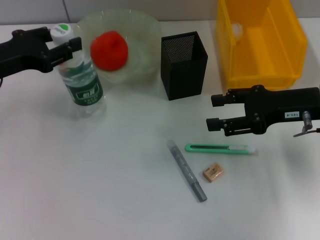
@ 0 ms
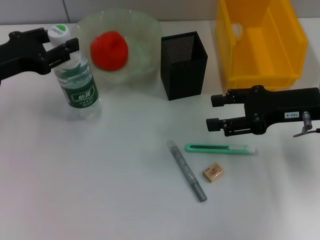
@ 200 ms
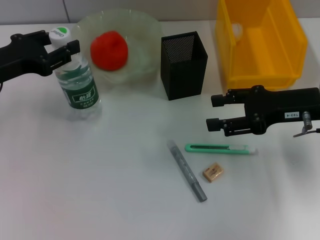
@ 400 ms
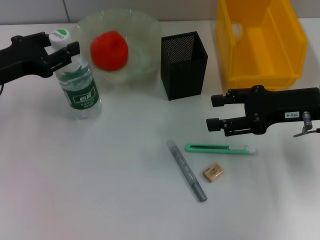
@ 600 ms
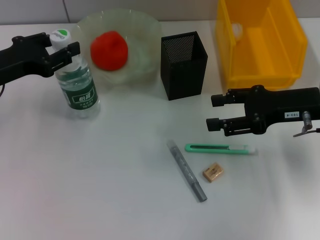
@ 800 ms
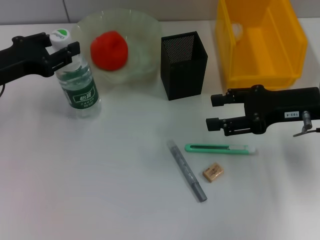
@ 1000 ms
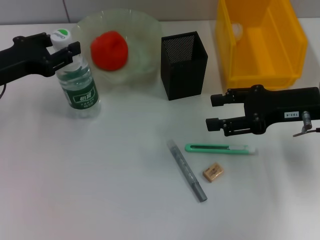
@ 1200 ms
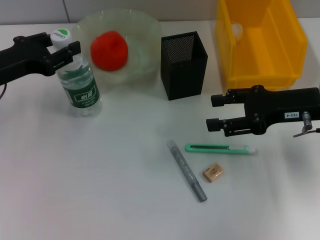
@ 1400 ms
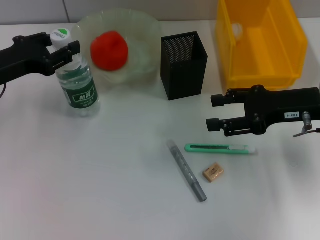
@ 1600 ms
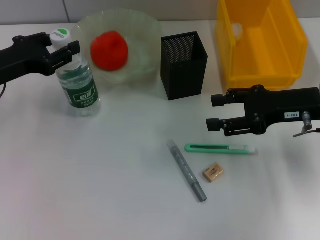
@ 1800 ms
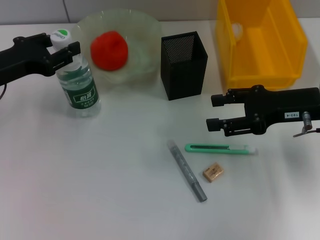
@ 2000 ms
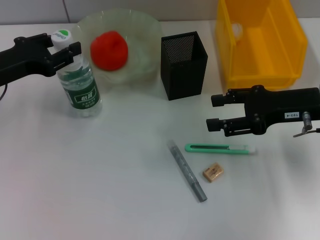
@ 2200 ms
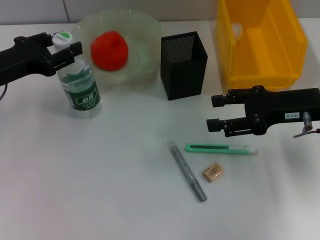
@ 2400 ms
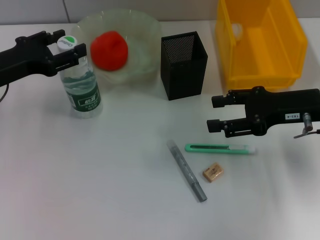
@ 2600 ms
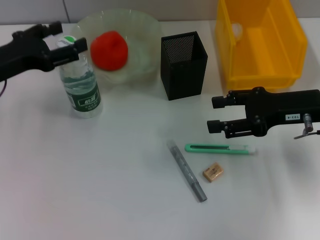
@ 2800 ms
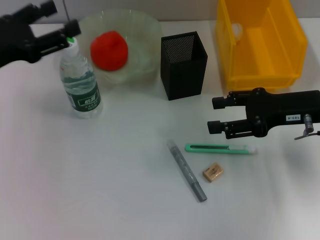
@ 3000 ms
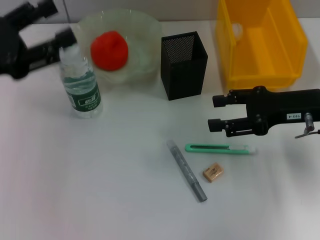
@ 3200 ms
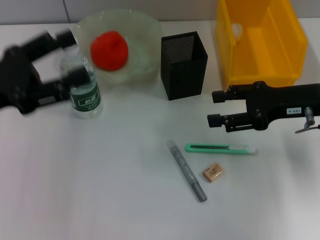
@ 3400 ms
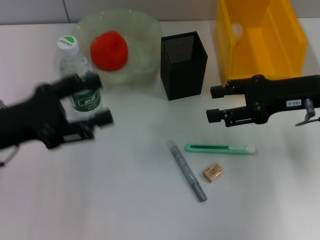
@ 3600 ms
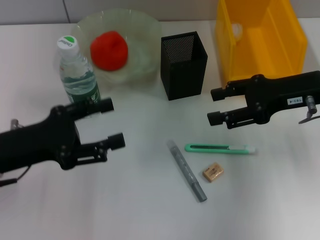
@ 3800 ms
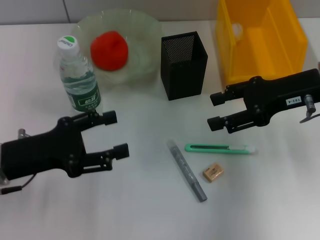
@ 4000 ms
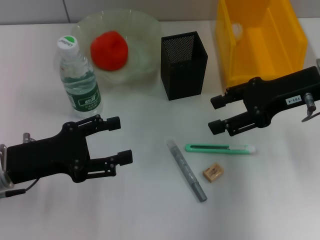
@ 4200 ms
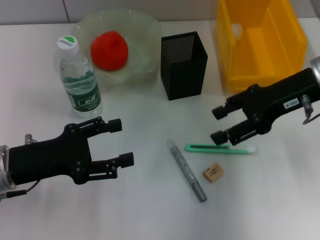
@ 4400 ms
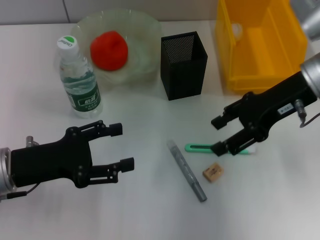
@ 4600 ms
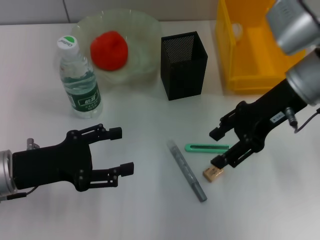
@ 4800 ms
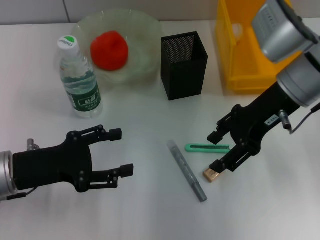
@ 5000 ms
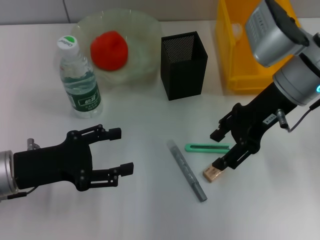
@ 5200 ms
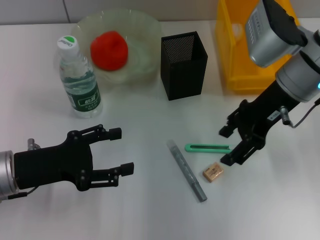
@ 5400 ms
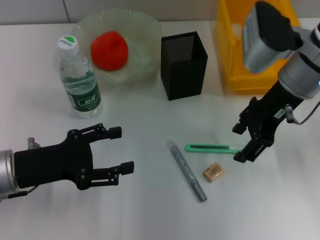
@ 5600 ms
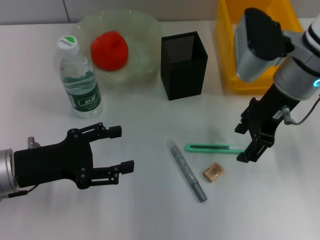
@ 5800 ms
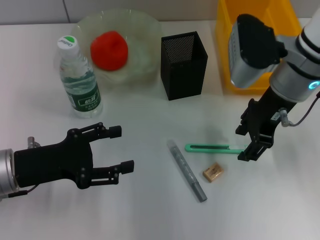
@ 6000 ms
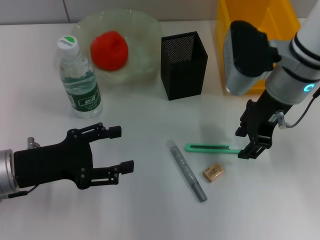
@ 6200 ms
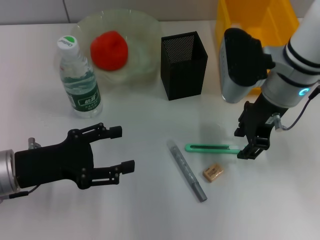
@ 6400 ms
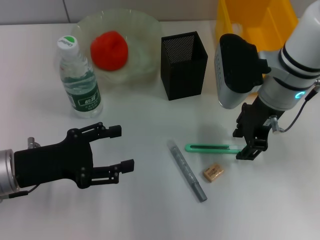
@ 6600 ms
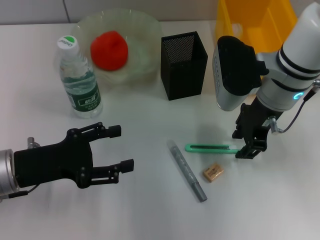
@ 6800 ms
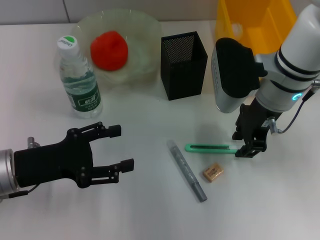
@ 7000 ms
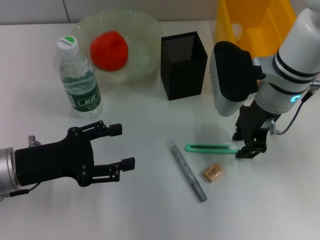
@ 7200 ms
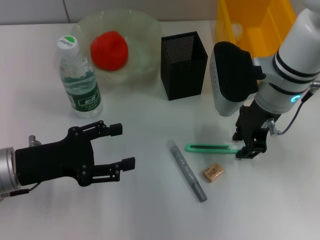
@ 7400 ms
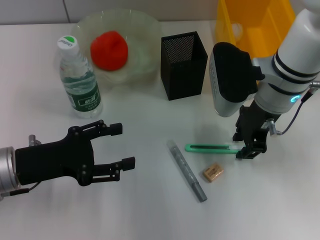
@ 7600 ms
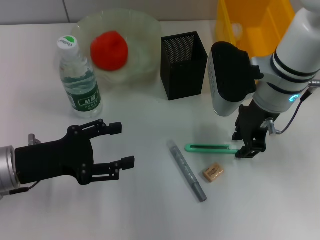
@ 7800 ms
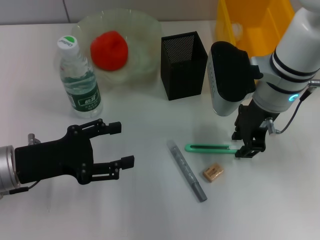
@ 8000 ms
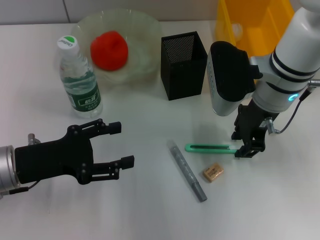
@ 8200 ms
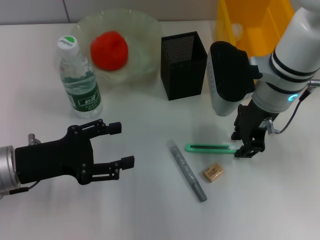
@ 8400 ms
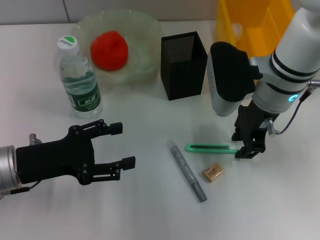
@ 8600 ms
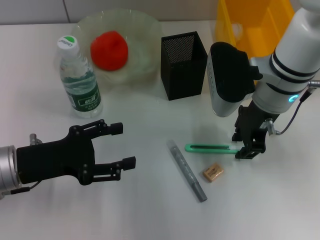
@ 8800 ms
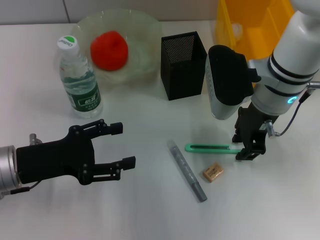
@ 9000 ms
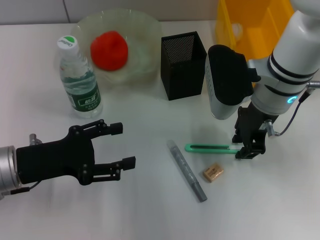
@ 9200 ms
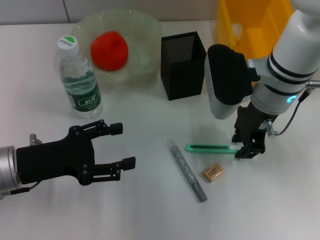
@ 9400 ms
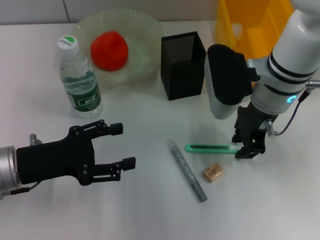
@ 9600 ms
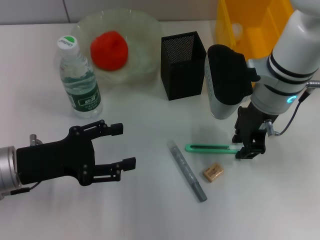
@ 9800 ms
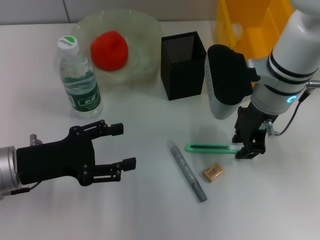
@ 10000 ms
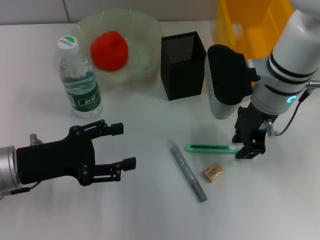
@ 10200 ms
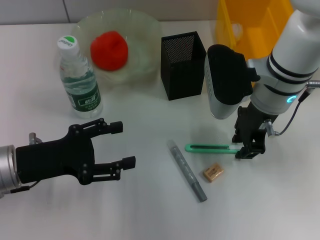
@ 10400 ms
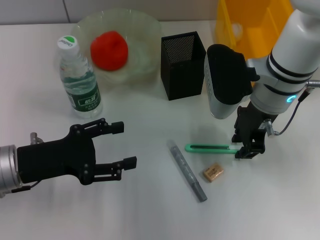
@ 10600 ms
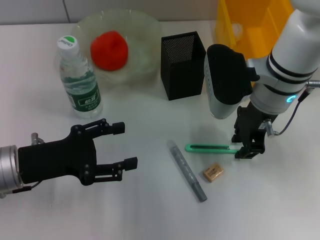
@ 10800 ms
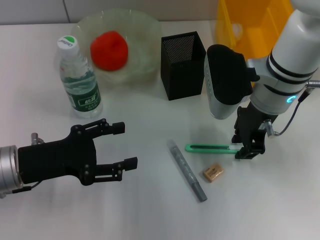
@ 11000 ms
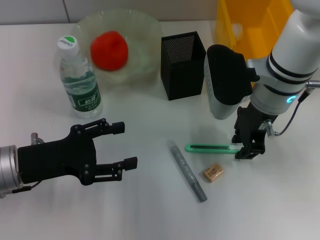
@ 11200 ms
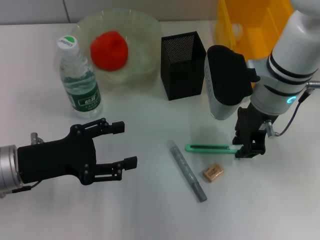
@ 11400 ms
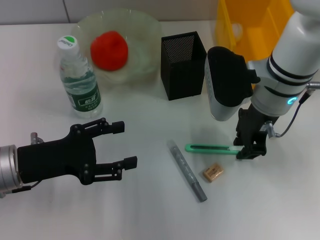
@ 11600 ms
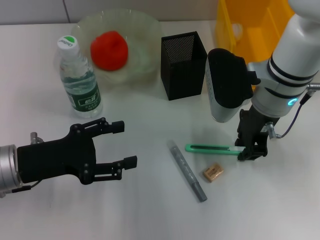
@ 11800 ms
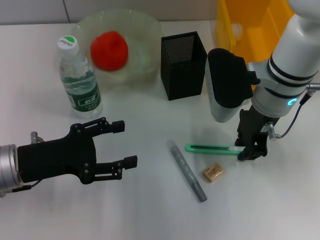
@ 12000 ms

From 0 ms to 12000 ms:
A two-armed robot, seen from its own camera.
Step, from 0 ms to 2800 ms: Place the water bottle on the table with the left hand.
From 0 ms to 1600 ms: The grippers make only small movements.
From 1600 ms to 3000 ms: The left gripper opens its fingers.
From 3000 ms to 4400 ms: The left gripper is displaced backward and downward by about 10 cm, while the right gripper shifts some 5 cm upward.
From 4400 ms to 6000 ms: The right gripper is displaced to the left by roughly 5 cm.
From 6000 ms to 7600 ms: The right gripper closes its fingers.
From 7600 ms to 12000 ms: The two grippers keep their place.

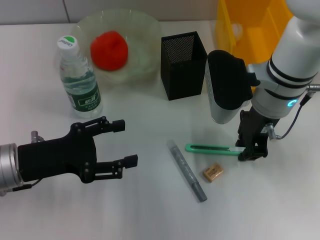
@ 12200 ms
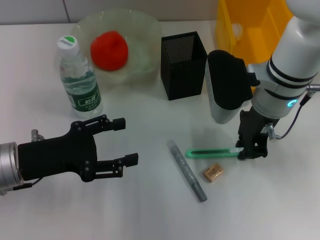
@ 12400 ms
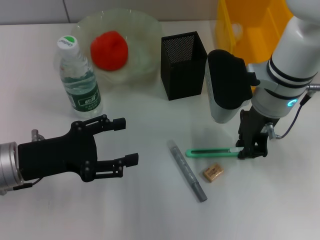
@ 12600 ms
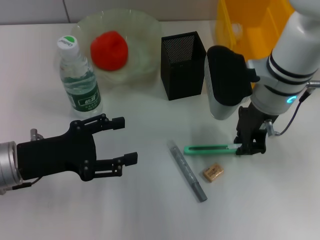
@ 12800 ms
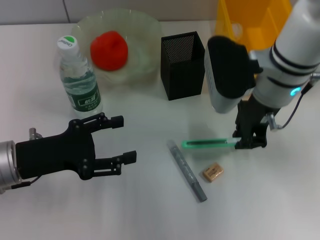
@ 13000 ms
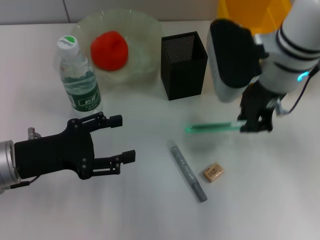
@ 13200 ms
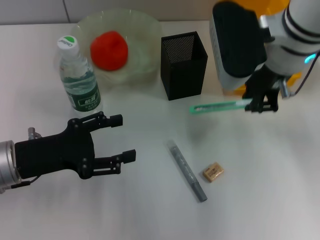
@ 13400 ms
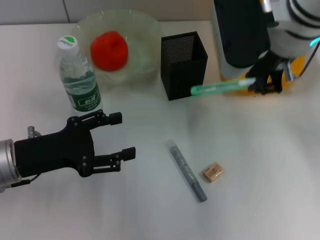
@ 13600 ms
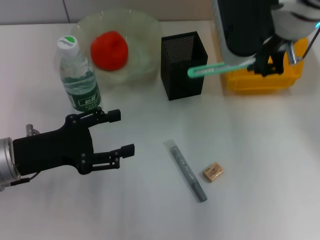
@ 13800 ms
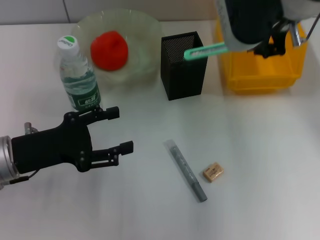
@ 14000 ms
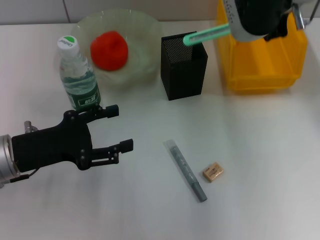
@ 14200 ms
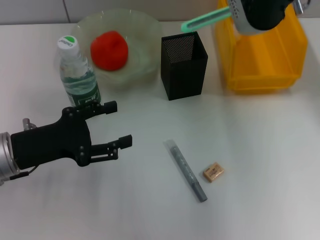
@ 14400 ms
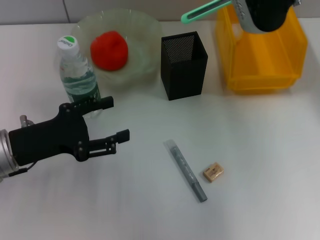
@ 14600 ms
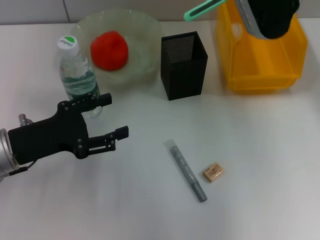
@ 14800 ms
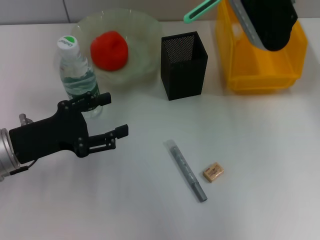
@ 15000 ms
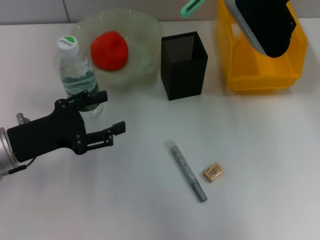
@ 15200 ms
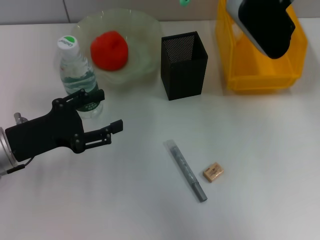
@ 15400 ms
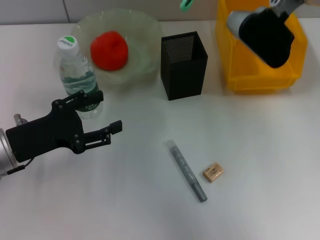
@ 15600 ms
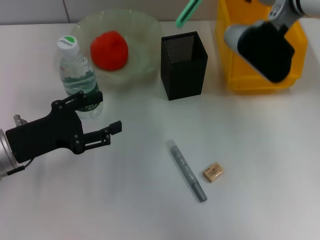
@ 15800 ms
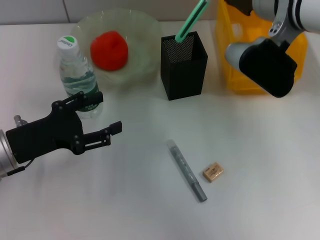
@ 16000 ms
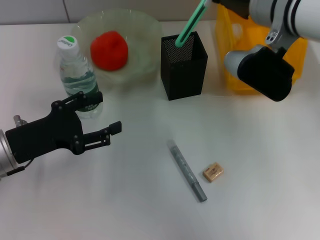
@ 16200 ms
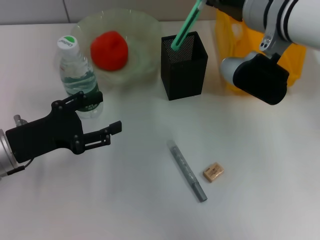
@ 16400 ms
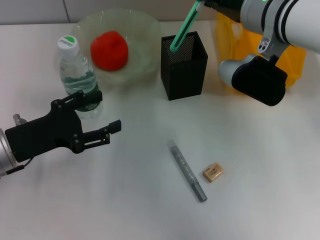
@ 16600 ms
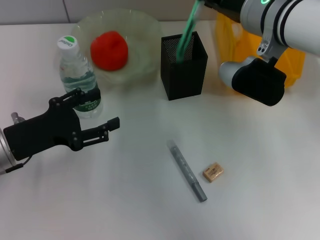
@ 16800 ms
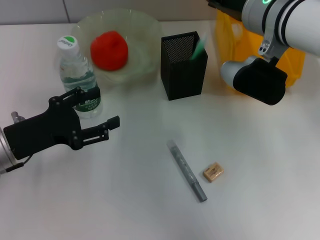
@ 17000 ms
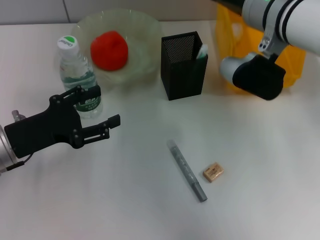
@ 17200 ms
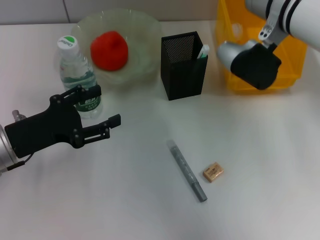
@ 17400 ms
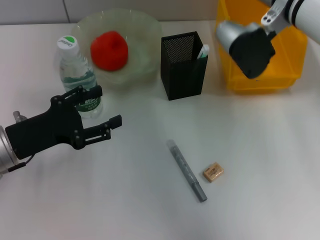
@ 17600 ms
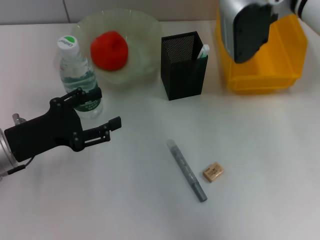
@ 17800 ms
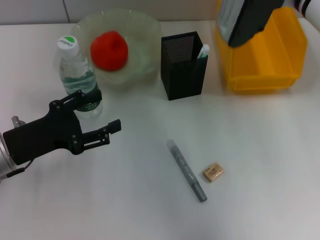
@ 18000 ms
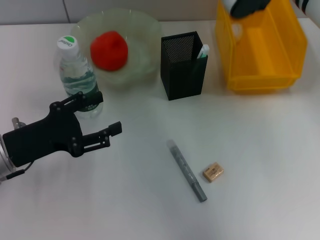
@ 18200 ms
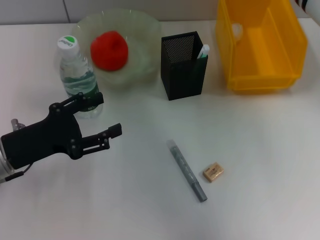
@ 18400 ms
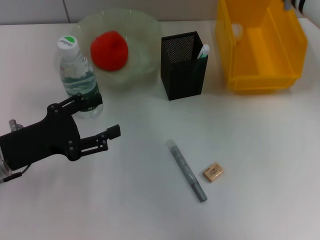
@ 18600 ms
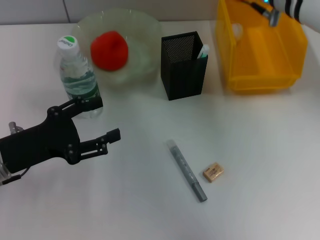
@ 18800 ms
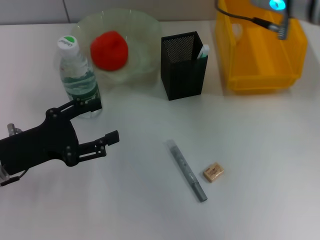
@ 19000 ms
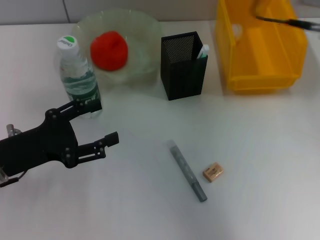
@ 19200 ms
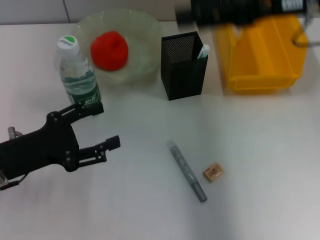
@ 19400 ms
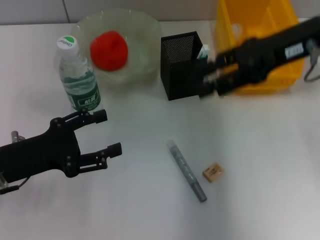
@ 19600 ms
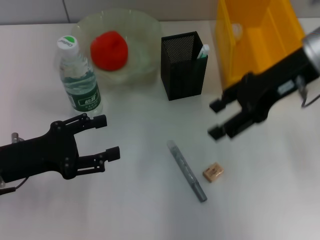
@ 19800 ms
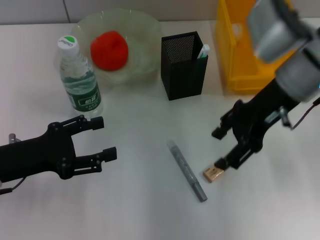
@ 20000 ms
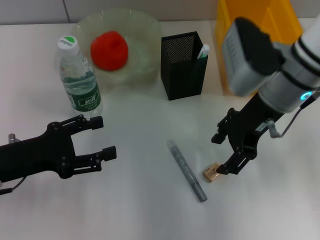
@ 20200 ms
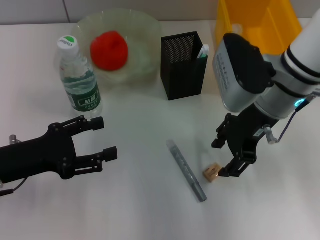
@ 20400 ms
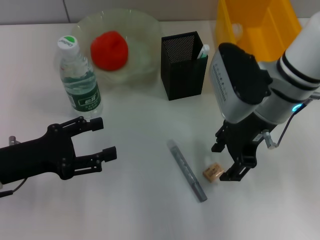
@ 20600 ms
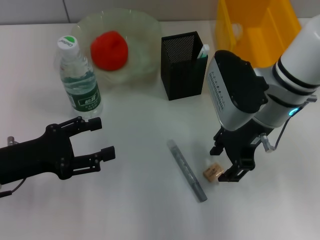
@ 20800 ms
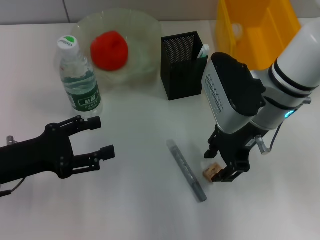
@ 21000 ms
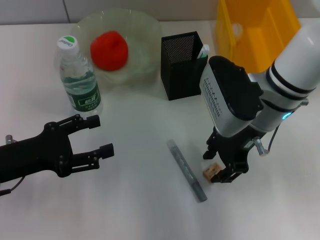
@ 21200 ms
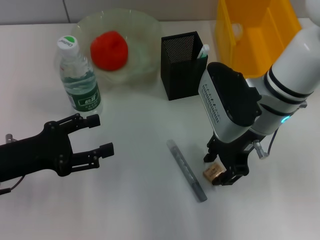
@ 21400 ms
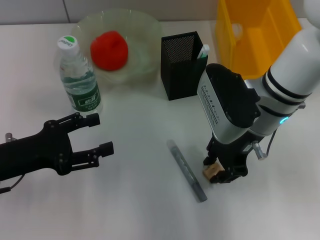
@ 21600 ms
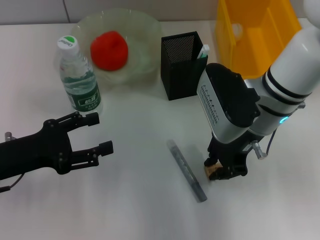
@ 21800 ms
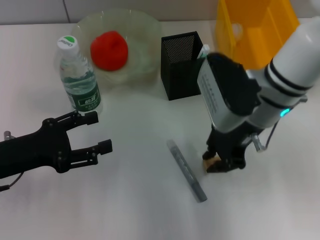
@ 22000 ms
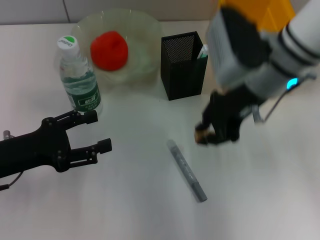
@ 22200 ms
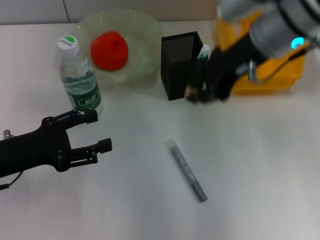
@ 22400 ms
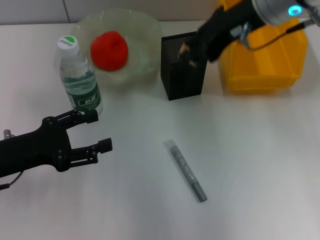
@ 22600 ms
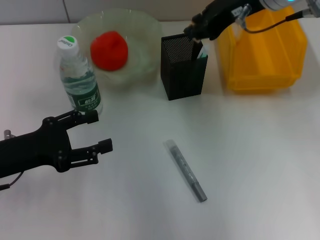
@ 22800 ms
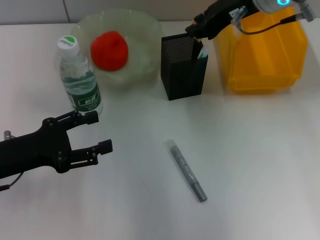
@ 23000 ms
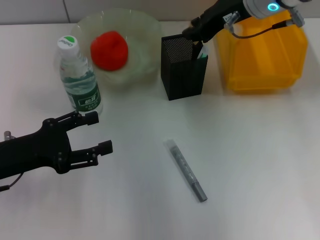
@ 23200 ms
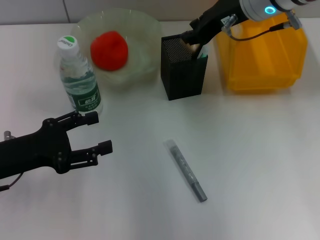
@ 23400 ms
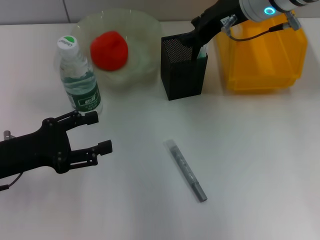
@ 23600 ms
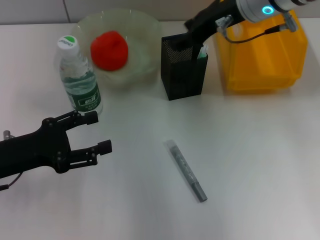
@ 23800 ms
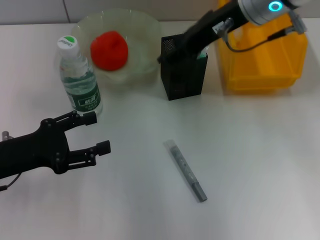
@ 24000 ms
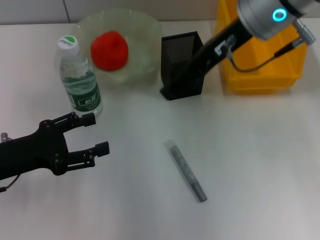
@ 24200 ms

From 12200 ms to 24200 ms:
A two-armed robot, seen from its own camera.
Step, from 12200 ms to 21600 ms: Grab the eraser with the right hand.
Step, from 21800 ms to 23400 ms: Put the eraser into the pen holder with the right hand.
From 12200 ms to 13800 ms: The right gripper heads upward, covering some 15 cm.
From 13800 ms to 15200 ms: The right gripper moves forward, some 5 cm.
From 15200 ms to 16600 ms: The right gripper is displaced downward by some 5 cm.
From 16600 ms to 18200 ms: The right gripper opens.
From 18200 ms to 19800 ms: The right gripper changes place by roughly 5 cm, and opens its fingers.
From 19800 ms to 21200 ms: The right gripper moves to the left and downward, roughly 10 cm.
From 21200 ms to 22600 ms: The right gripper travels upward by roughly 10 cm, and closes its fingers.
From 22600 ms to 24200 ms: The right gripper opens its fingers.
